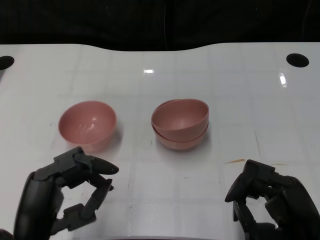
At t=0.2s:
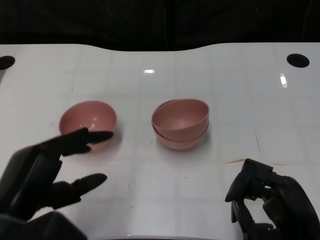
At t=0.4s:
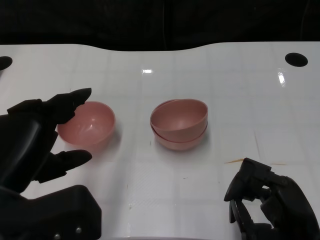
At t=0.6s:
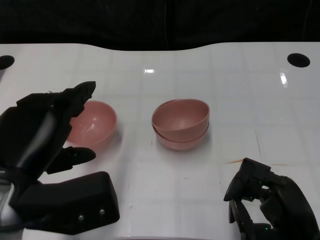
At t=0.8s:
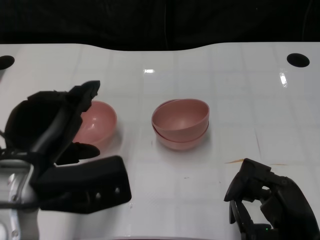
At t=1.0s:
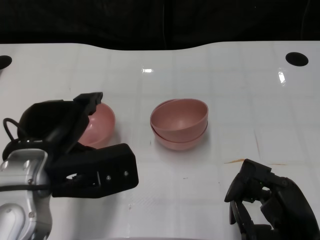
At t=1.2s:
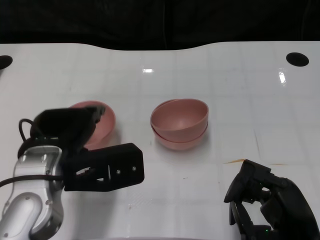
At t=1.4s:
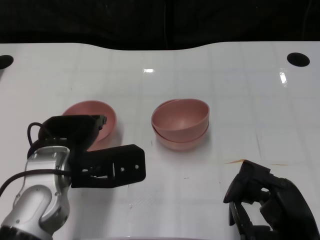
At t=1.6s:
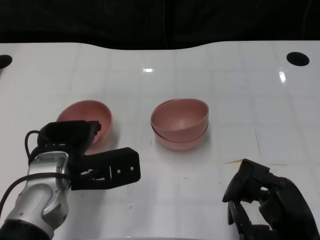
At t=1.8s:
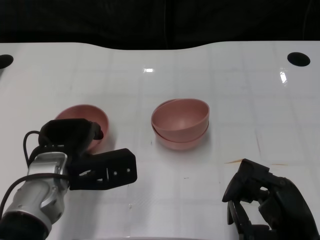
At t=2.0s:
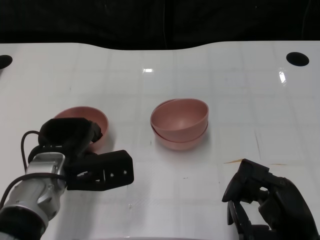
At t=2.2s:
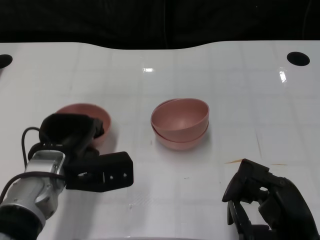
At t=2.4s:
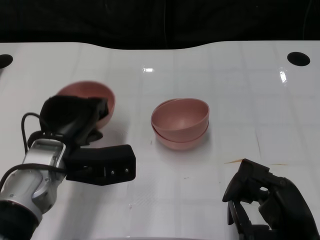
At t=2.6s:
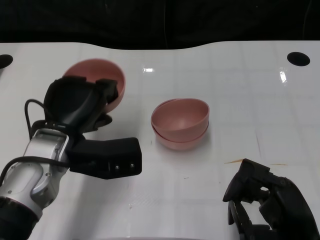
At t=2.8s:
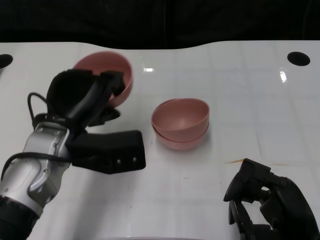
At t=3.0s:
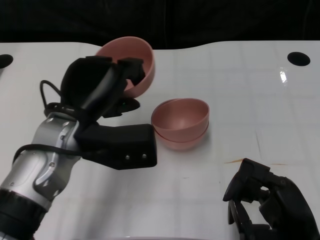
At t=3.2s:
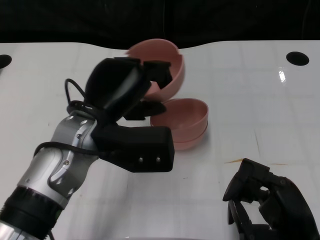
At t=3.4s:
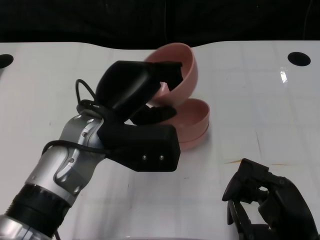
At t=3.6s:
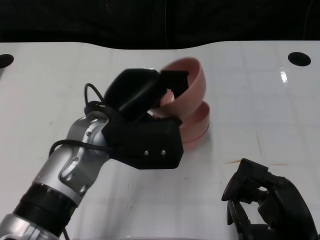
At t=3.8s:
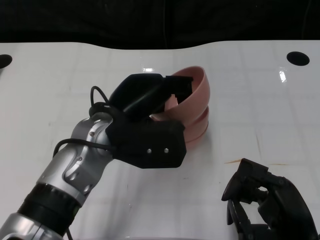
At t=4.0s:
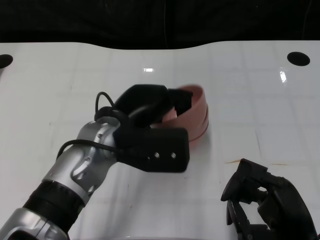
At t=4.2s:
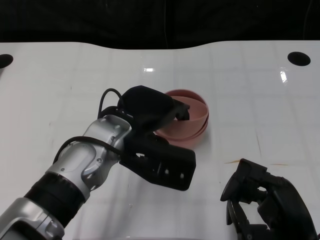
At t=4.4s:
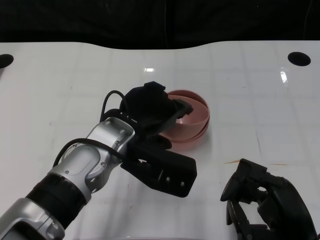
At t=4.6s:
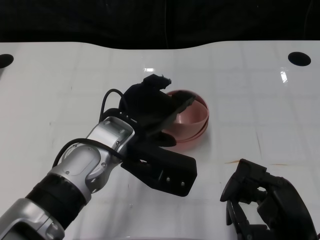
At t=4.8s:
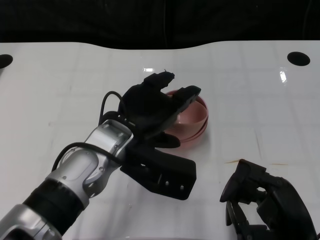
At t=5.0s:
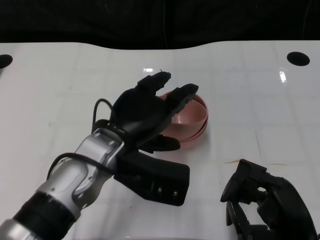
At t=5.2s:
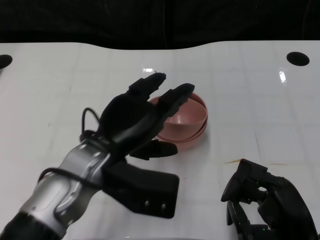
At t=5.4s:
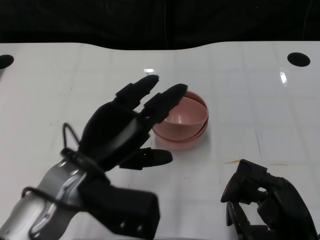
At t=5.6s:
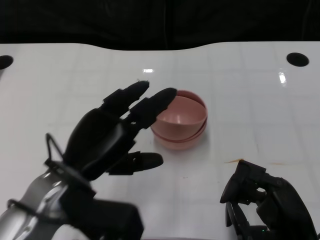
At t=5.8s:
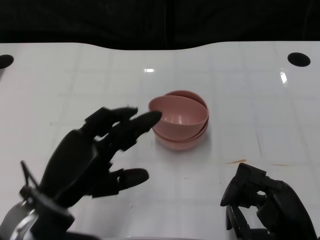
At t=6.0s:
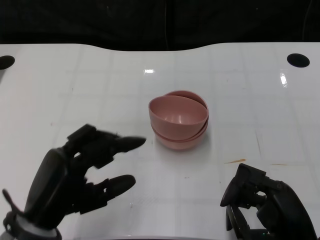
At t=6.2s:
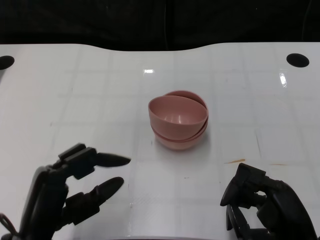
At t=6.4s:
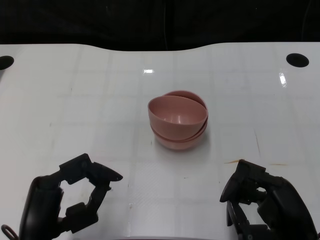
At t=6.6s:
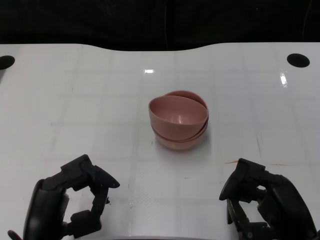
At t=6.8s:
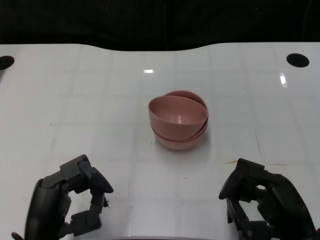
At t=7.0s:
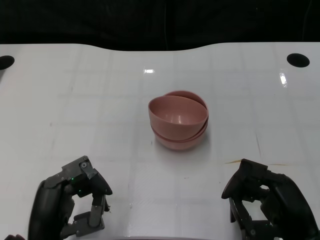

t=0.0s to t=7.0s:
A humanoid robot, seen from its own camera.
Task of the whole recording: Pick up the bowl on one side of the table and place it on top of the middle bowl, then pick up the bowl on the other side of the table and place it on top of the middle bowls.
Step, t=0.0s to t=2.2s: Grasp the bowl on the left with the left gripper.
Step, t=2.4s to t=5.4s: Place the bowl on the left onto the bowl in the middle with left gripper.
t=0.0s to t=1.4s: The left hand heads forward, covering some 10 cm.
t=2.8s to t=4.2s: The left hand shifts roughly 5 cm to the right.
t=4.2s to t=5.6s: The left hand travels to the left and backward by about 10 cm.
t=5.6s to t=7.0s: The left hand heads backward and downward, covering about 10 cm.

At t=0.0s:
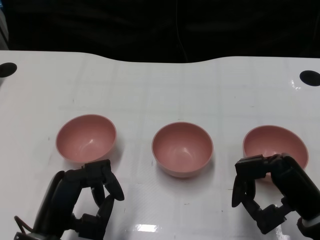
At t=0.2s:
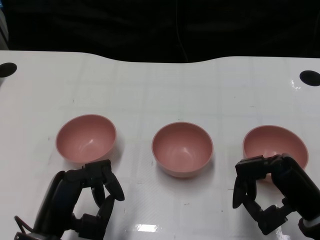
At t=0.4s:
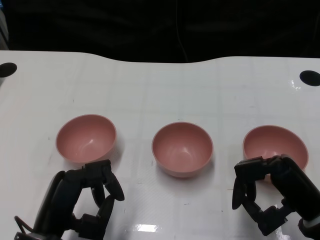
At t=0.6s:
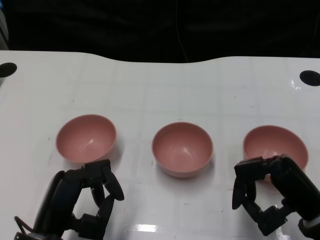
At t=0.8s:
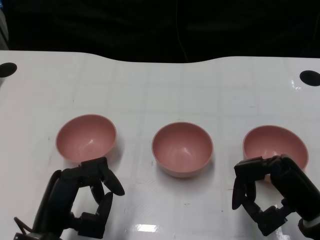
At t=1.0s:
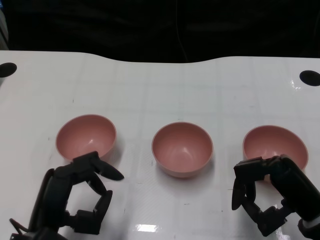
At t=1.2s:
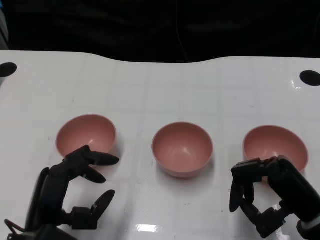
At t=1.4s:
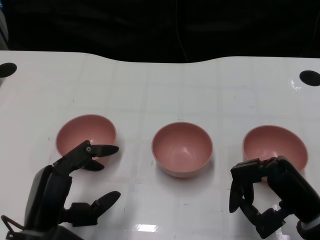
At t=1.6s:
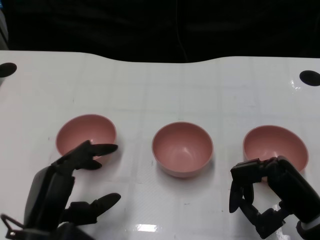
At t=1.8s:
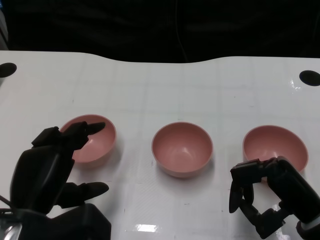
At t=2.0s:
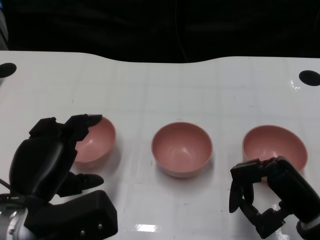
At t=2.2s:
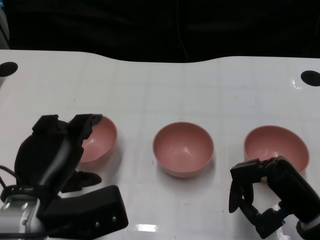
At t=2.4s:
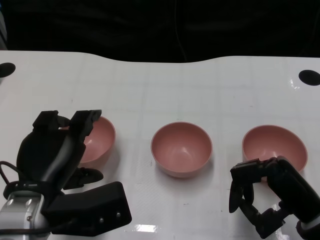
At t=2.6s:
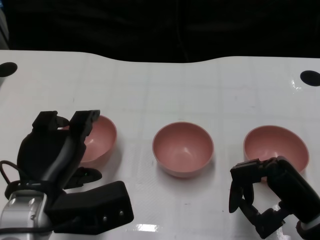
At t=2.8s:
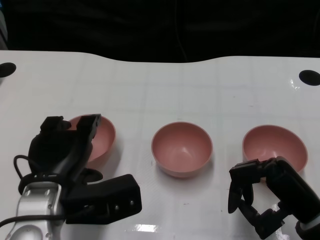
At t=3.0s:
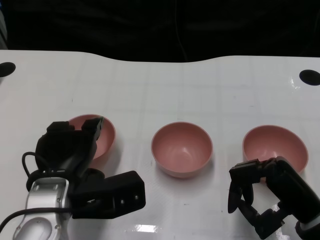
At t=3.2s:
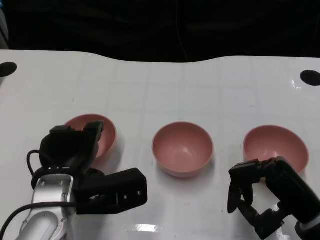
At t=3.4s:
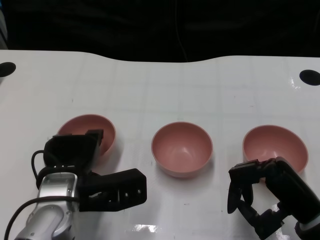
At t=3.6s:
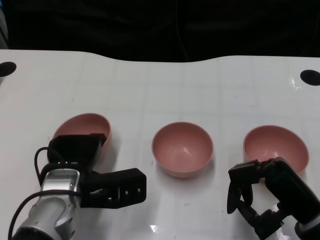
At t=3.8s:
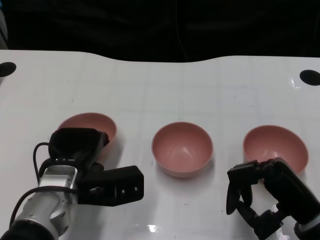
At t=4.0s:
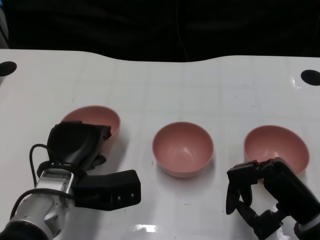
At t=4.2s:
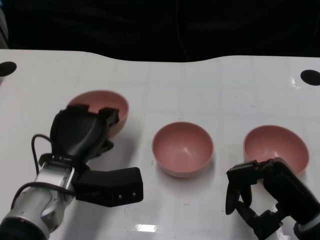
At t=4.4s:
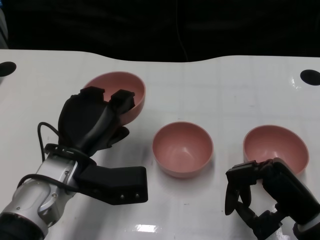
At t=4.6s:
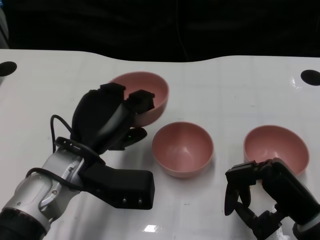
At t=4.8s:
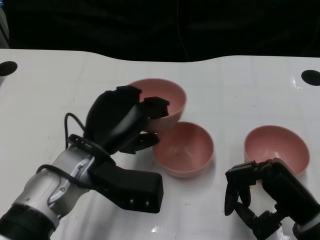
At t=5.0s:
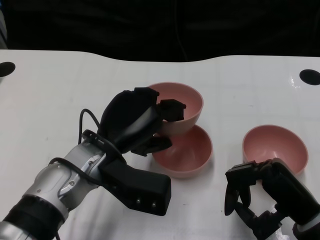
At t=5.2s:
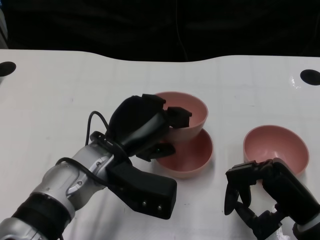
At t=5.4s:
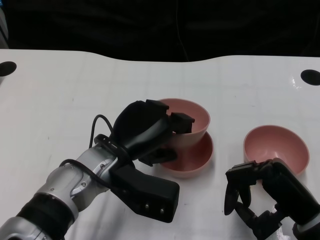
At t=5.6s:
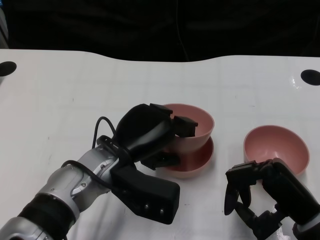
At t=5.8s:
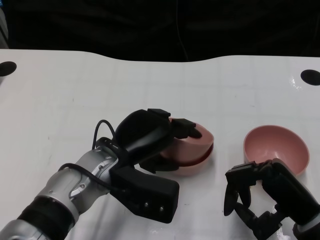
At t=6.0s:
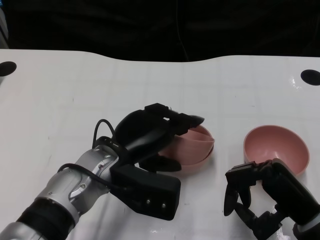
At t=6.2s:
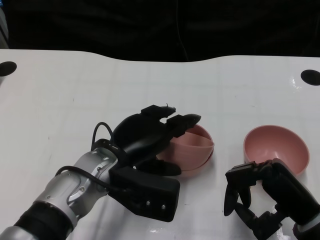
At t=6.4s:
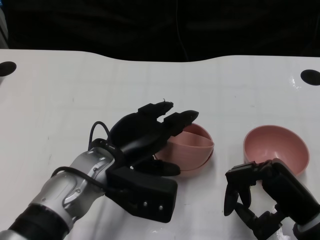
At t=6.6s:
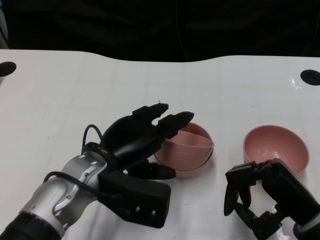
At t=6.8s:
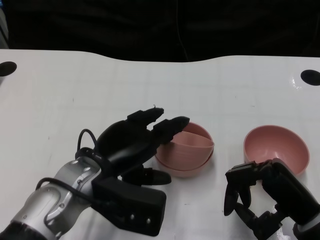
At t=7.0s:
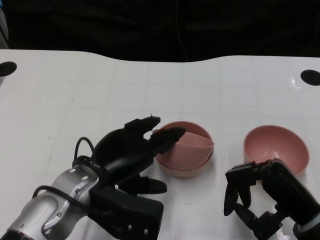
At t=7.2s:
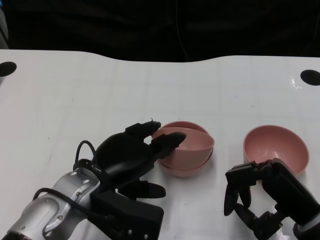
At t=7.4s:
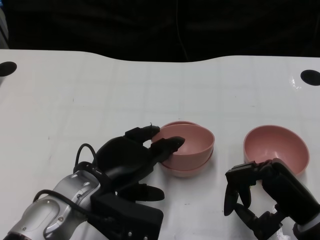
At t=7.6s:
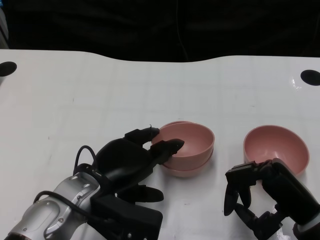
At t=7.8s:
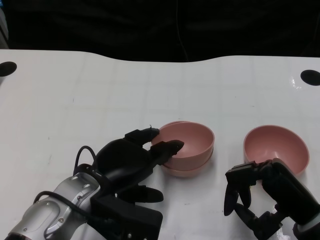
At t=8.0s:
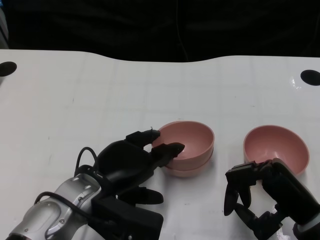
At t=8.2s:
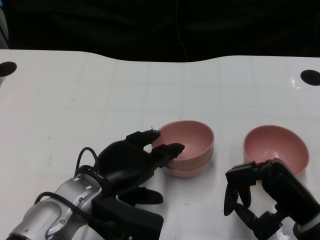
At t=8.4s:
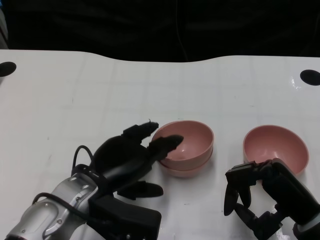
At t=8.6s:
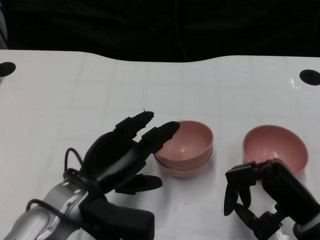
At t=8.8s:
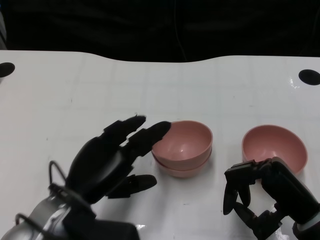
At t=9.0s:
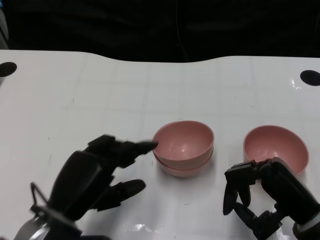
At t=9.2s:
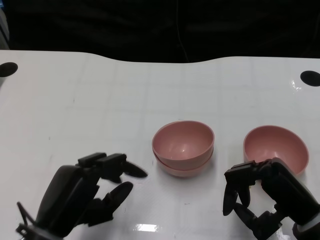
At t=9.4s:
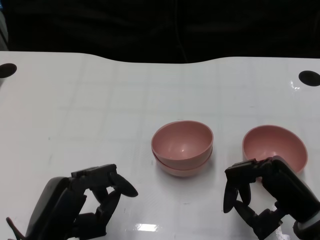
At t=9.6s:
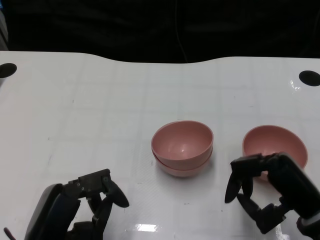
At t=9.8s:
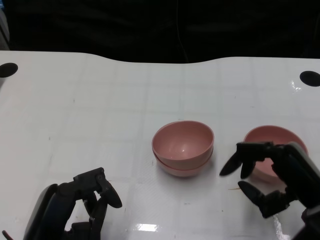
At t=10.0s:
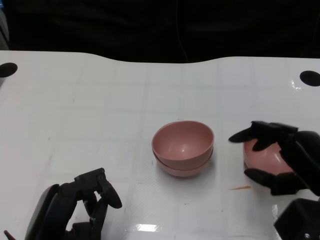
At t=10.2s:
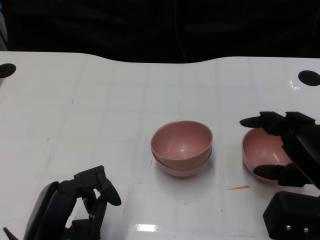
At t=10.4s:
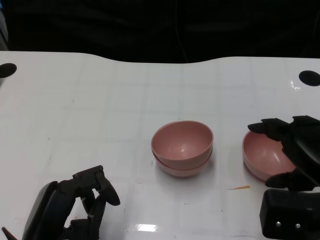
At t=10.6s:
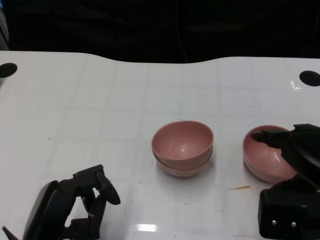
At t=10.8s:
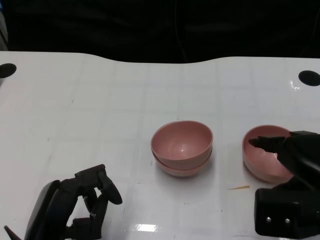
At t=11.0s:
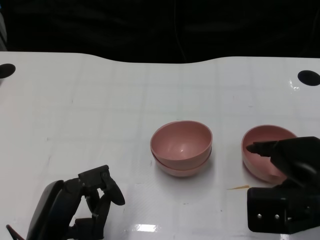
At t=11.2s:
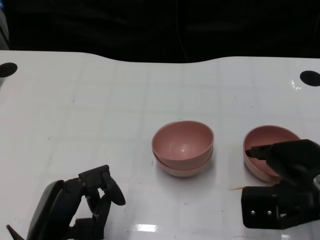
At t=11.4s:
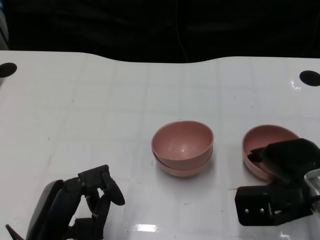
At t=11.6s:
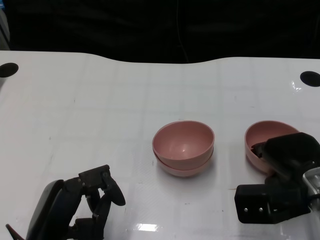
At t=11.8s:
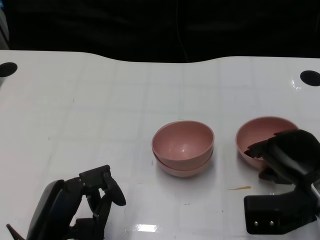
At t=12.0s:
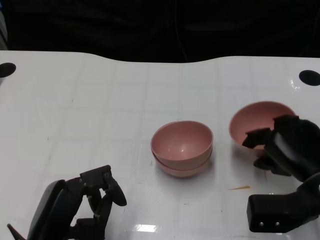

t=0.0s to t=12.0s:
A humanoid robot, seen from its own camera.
Task of the whole recording: Pick up the bowl on one side of the table and place it on top of the middle bowl, then pick up the bowl on the other side of the table and place it on top of the middle bowls.
Step, t=1.0s to t=3.8s: Grasp the bowl on the left with the left gripper.
Step, t=4.2s to t=8.4s: Place the bowl on the left onto the bowl in the middle with left gripper.
Step, t=8.6s to t=11.8s: Grasp the bowl on the right with the right gripper.
t=1.6s to t=3.0s: The left hand is displaced forward by approximately 5 cm.
t=4.4s to t=6.0s: The left hand heads to the right, covering some 5 cm.
t=6.0s to t=7.6s: There are only small adjustments of the hands.
t=7.6s to t=9.0s: The left hand shifts by about 5 cm.
t=9.0s to t=10.4s: The right hand is displaced upward by approximately 5 cm. Meanwhile the left hand changes place by approximately 5 cm.
t=10.4s to t=12.0s: The right hand goes roughly 5 cm downward.

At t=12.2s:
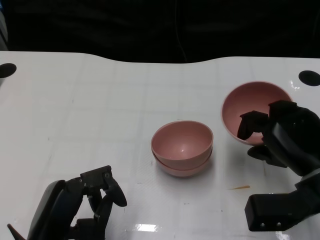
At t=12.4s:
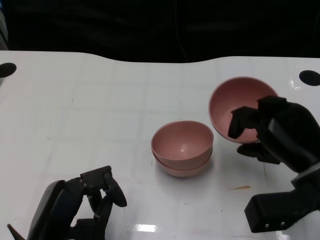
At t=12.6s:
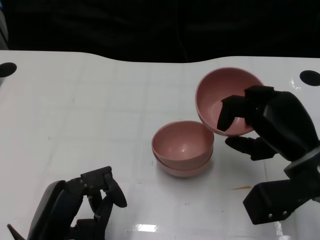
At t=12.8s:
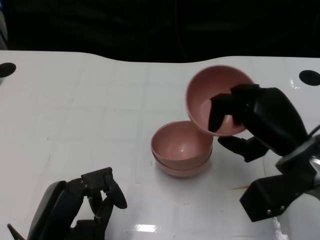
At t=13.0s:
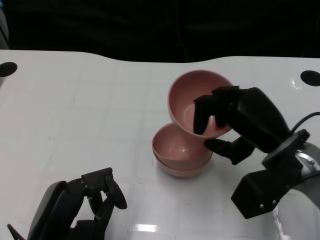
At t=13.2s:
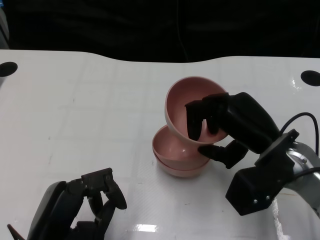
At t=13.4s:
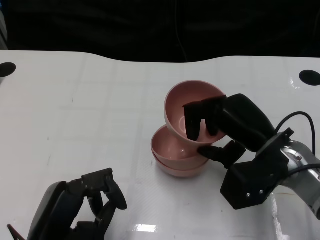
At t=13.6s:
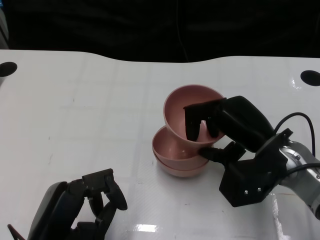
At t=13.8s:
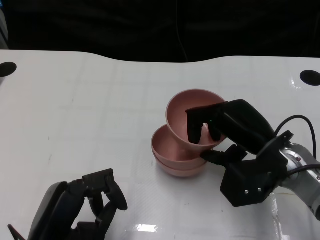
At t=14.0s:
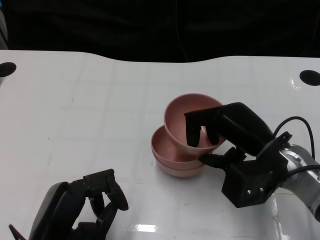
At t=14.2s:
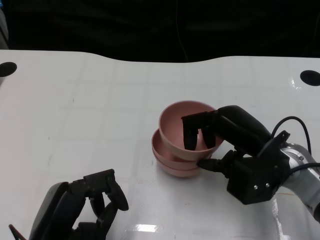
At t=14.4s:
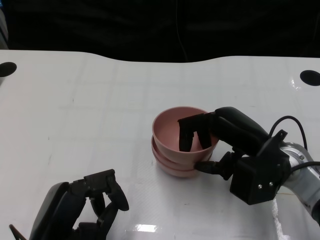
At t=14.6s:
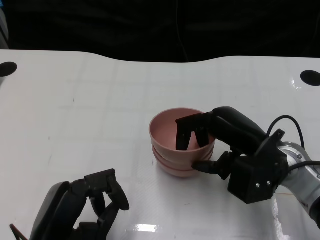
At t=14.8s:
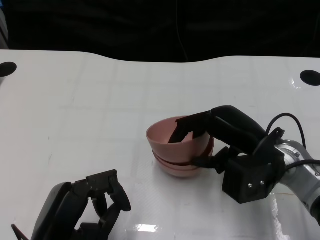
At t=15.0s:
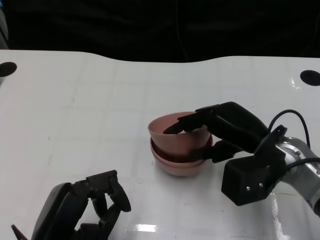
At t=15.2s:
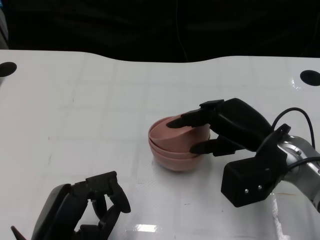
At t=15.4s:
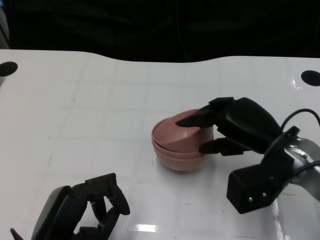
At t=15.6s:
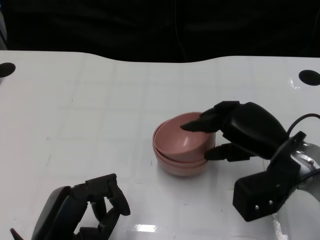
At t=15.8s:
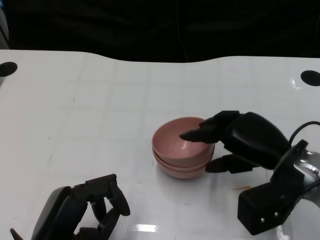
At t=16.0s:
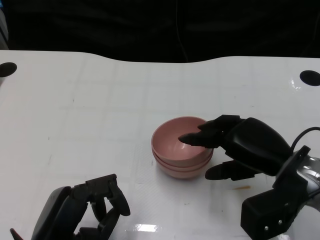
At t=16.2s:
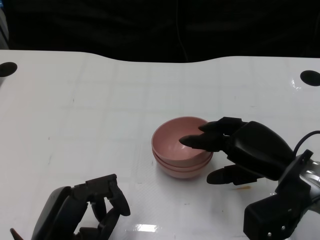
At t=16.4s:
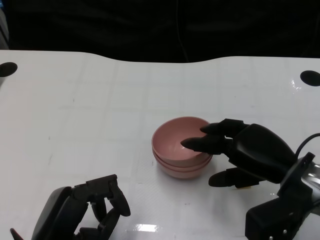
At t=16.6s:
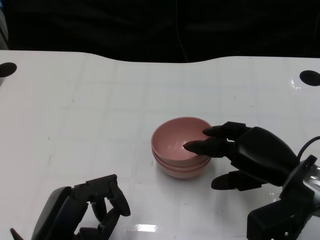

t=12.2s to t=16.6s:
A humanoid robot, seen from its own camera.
Task of the whole recording: Pick up the bowl on one side of the table and place it on top of the middle bowl, then pick up the bowl on the other side of the table and place it on top of the middle bowls.
t=12.2s to t=13.6s: The right hand moves to the left, approximately 5 cm.
t=13.6s to t=15.2s: There are only small adjustments of the hands.
t=15.2s to t=16.6s: The right hand changes place by about 5 cm.
